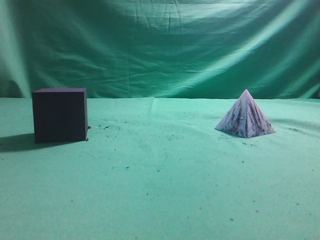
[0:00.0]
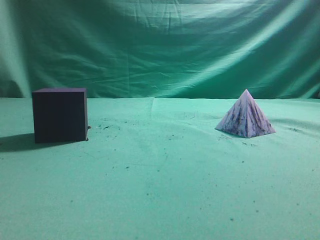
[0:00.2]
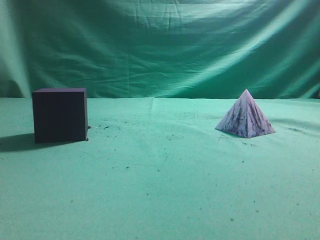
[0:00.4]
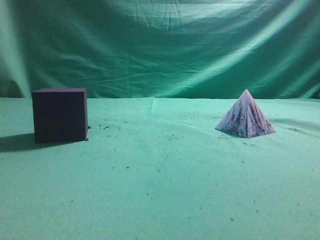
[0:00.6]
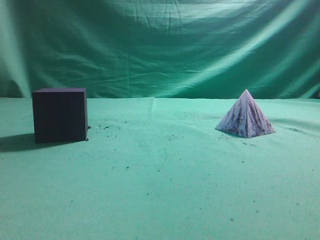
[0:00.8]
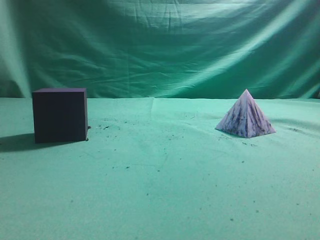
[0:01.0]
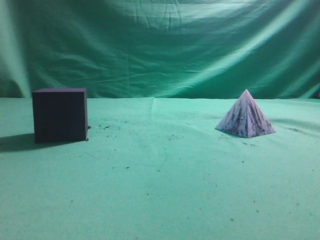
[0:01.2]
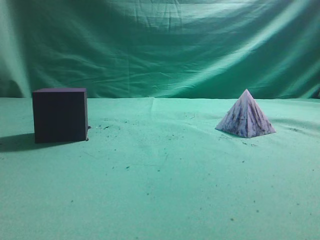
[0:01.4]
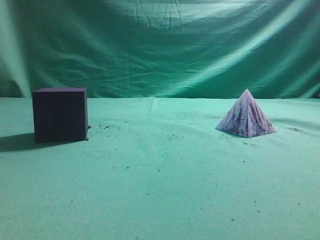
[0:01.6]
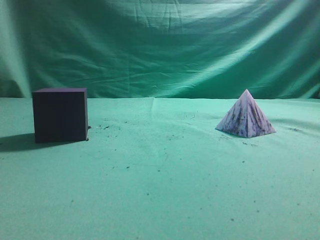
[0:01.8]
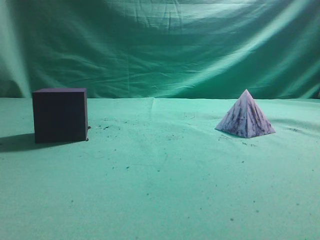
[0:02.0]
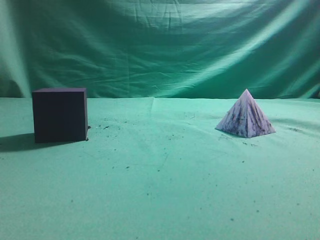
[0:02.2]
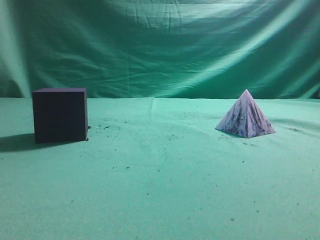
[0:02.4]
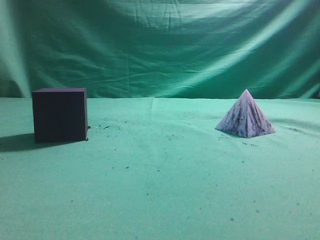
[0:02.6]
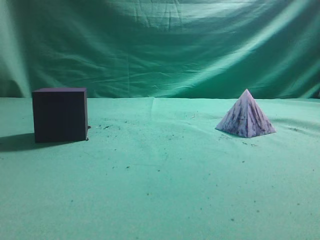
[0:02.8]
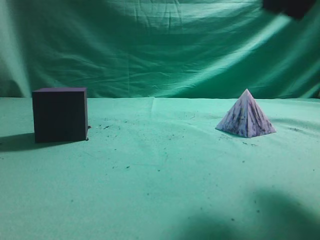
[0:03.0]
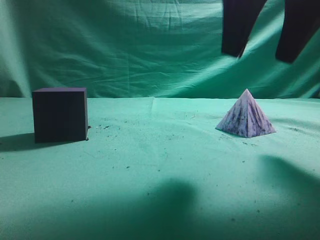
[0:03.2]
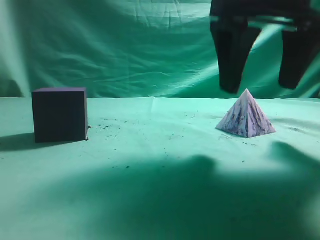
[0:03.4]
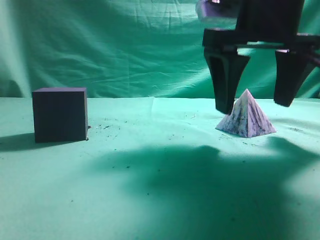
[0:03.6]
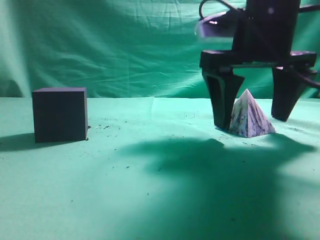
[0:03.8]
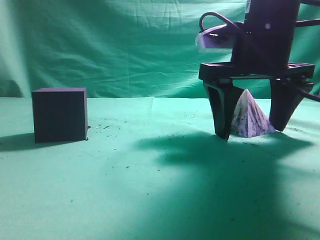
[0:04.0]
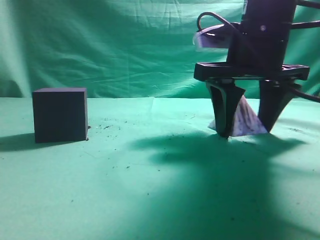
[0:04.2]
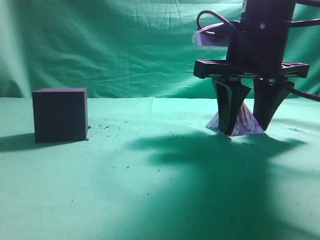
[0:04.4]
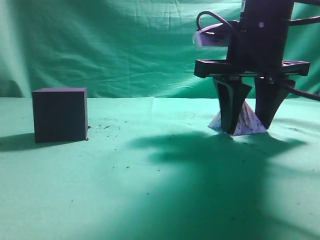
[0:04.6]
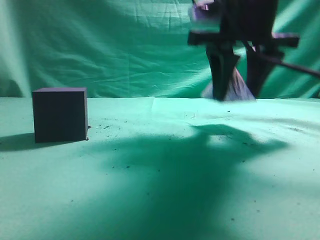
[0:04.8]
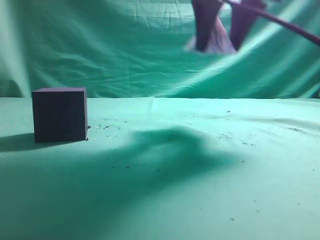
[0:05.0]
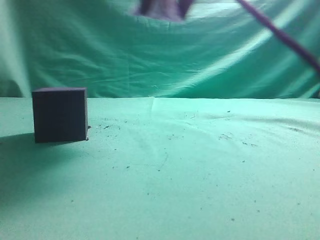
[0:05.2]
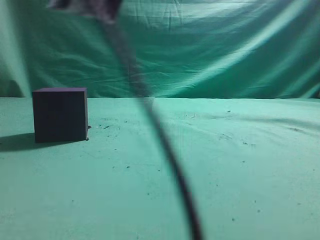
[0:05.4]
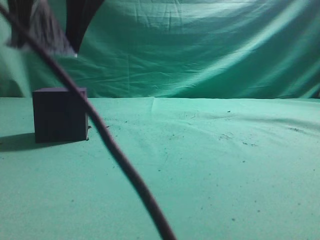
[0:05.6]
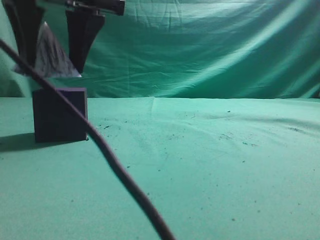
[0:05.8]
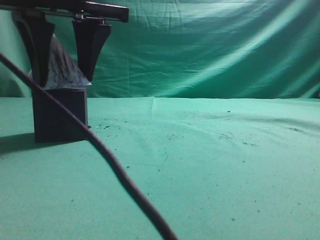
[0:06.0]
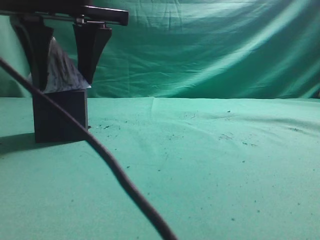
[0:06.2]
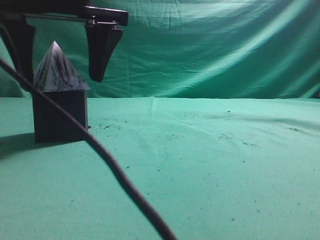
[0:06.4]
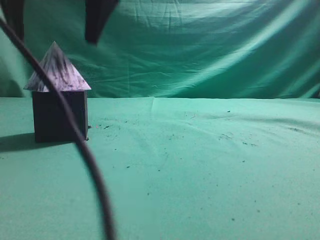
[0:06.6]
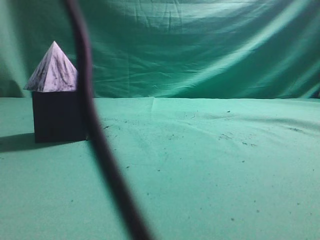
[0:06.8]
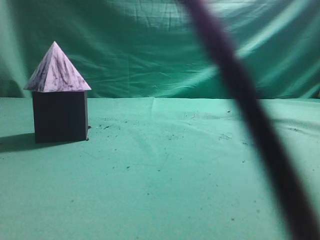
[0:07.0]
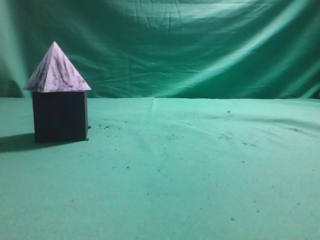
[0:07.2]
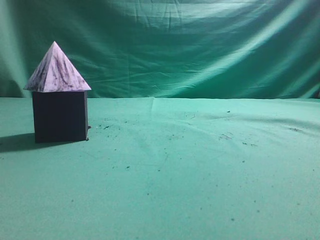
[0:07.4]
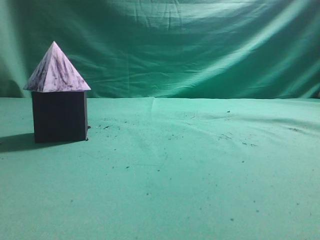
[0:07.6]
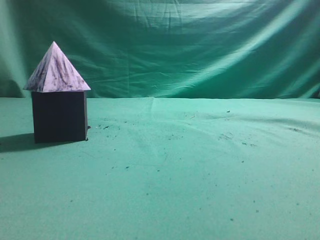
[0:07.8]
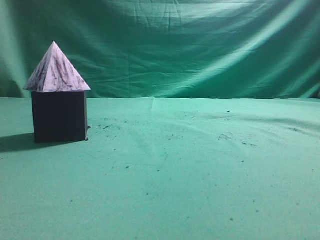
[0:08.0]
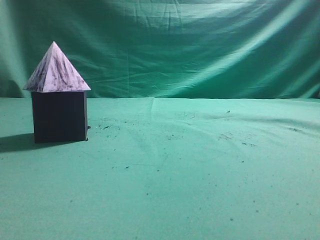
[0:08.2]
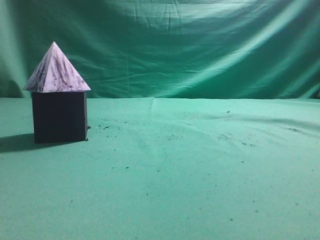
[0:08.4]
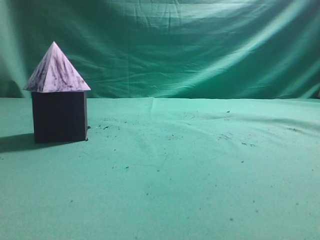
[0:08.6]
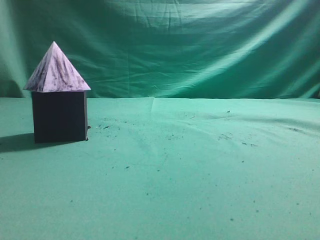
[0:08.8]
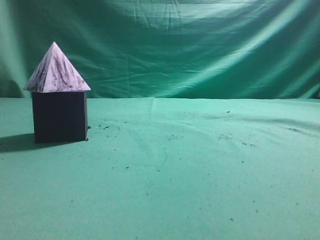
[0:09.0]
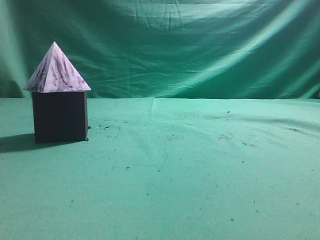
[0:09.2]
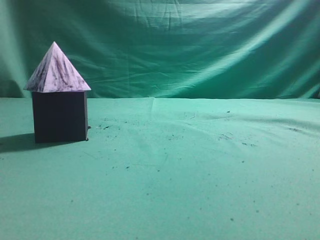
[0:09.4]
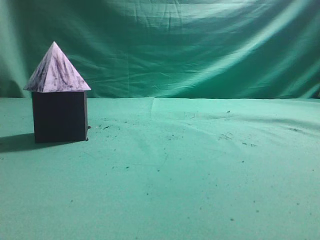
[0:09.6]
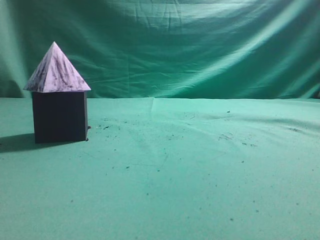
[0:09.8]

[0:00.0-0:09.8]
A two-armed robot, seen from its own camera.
Task of the whole recording: pick up the square pyramid from the table and place it on the cube block.
Step, 0:00.0 to 0:04.8: Grasp the triangular block.
Step, 0:05.0 to 0:06.6: Place the block onto the cube-shaped block.
0:02.8 to 0:04.2: The right gripper heads downward, forward and to the left, covering approximately 20 cm, and opens.
0:04.2 to 0:05.6: The right gripper moves to the left and upward, some 25 cm.
0:05.6 to 0:07.0: The right gripper travels upward by roughly 15 cm, and closes up.
0:07.0 to 0:08.4: The right gripper moves to the right and backward, some 35 cm.
